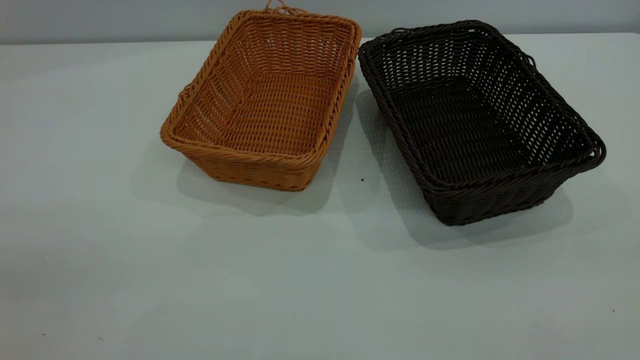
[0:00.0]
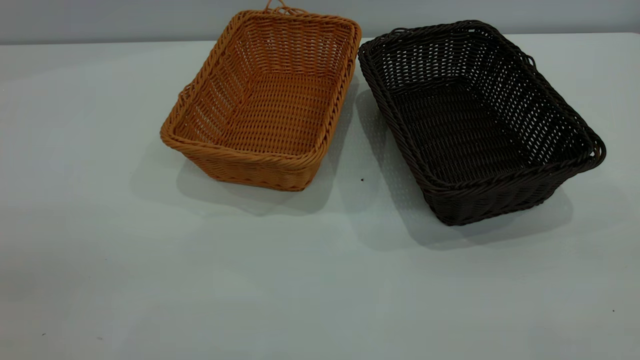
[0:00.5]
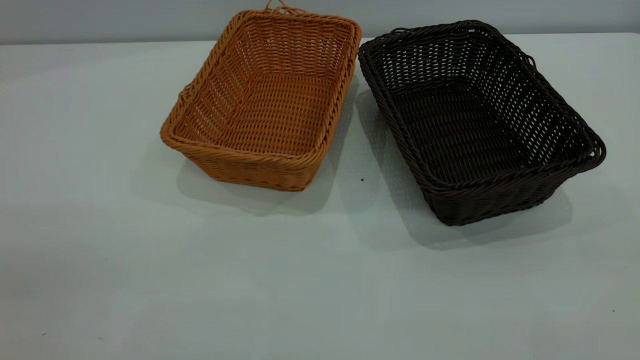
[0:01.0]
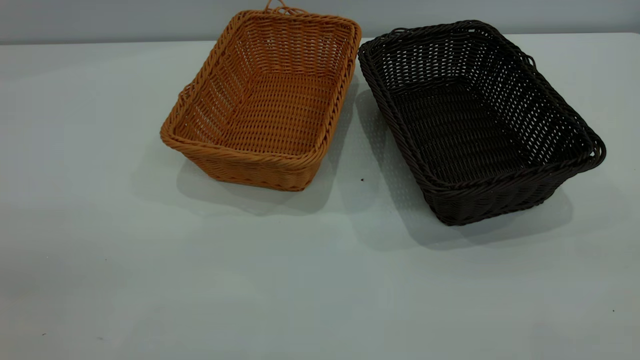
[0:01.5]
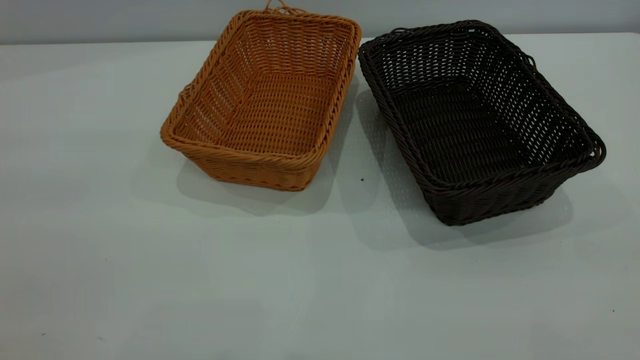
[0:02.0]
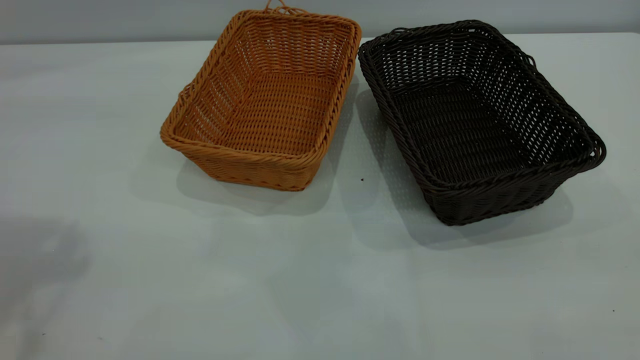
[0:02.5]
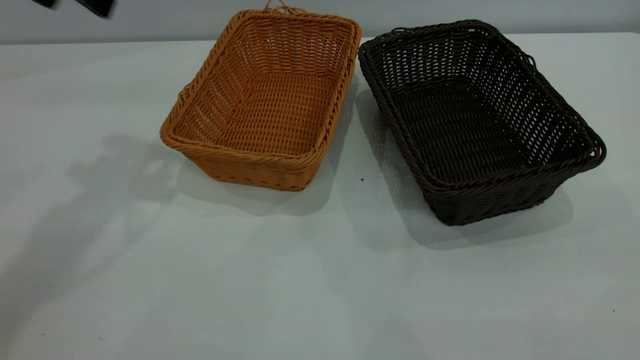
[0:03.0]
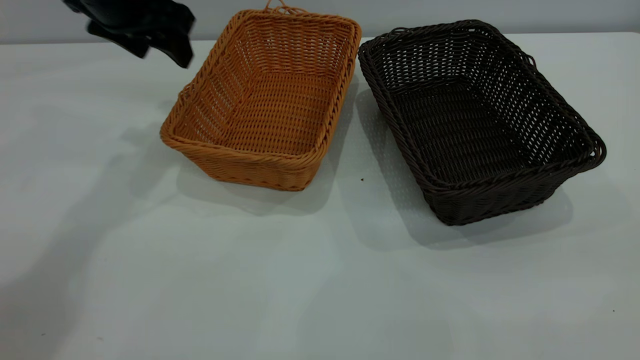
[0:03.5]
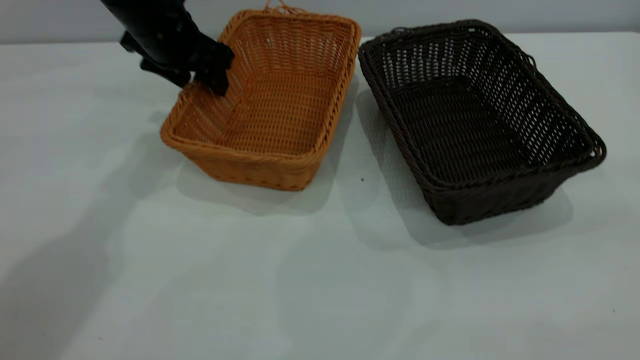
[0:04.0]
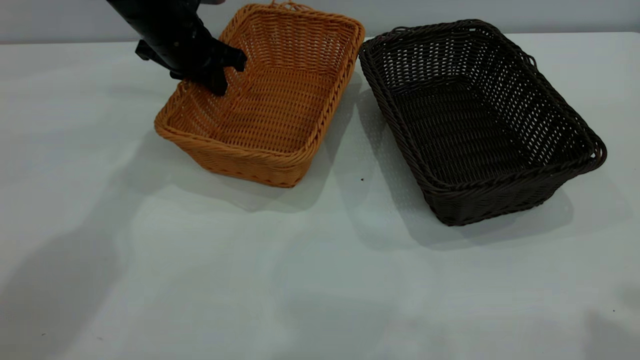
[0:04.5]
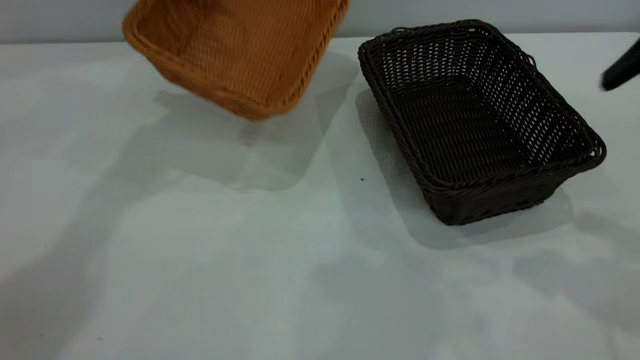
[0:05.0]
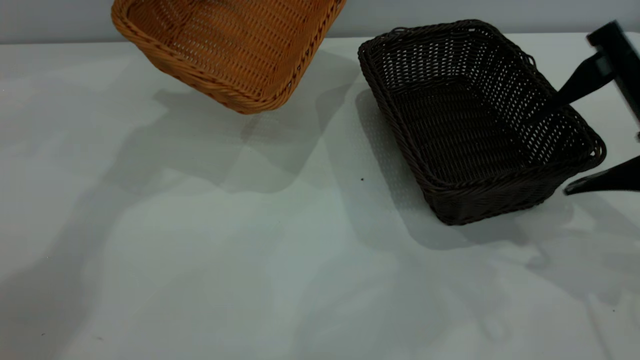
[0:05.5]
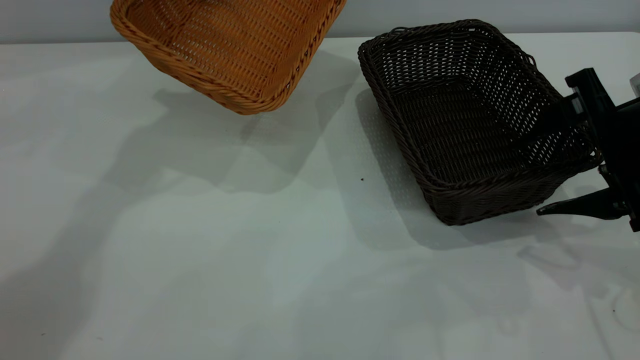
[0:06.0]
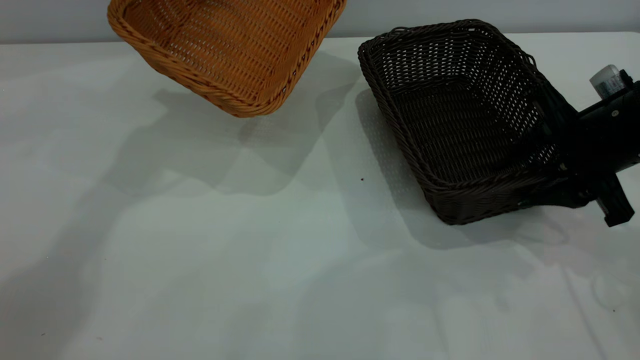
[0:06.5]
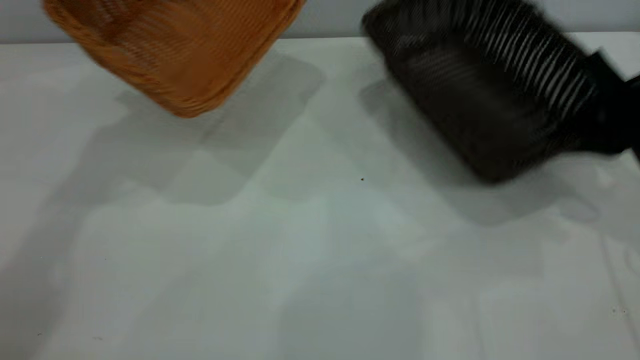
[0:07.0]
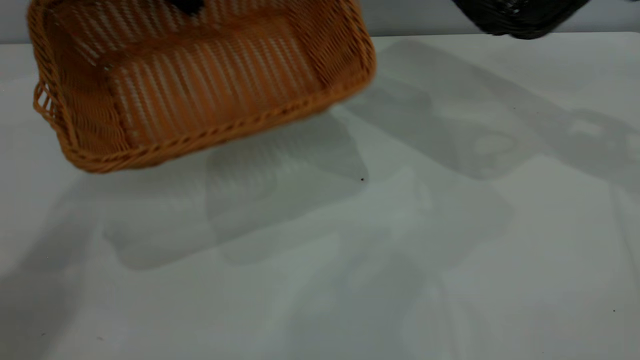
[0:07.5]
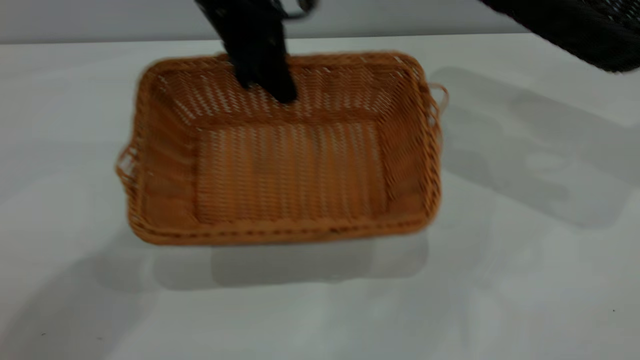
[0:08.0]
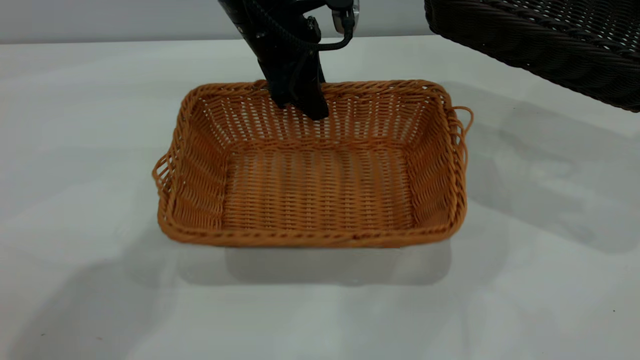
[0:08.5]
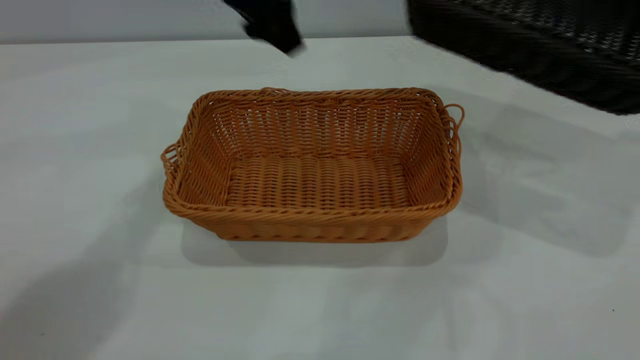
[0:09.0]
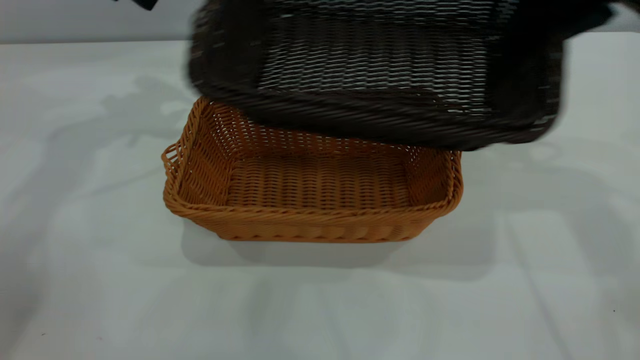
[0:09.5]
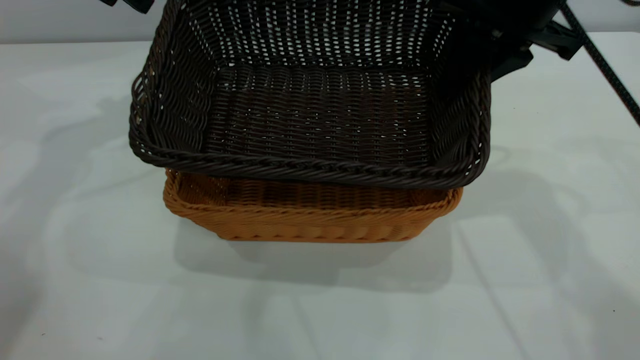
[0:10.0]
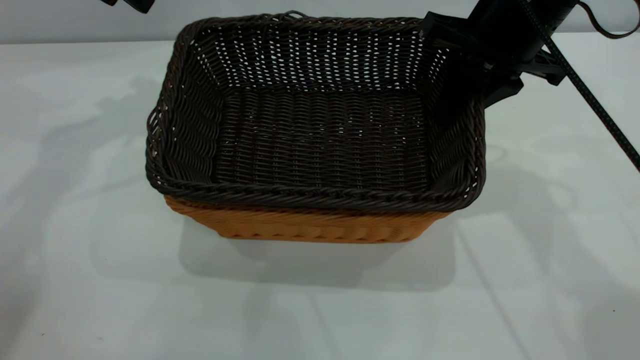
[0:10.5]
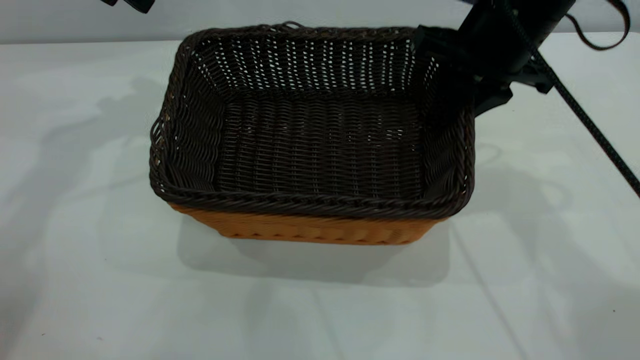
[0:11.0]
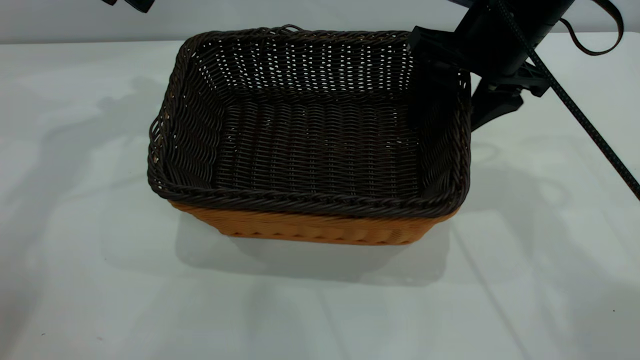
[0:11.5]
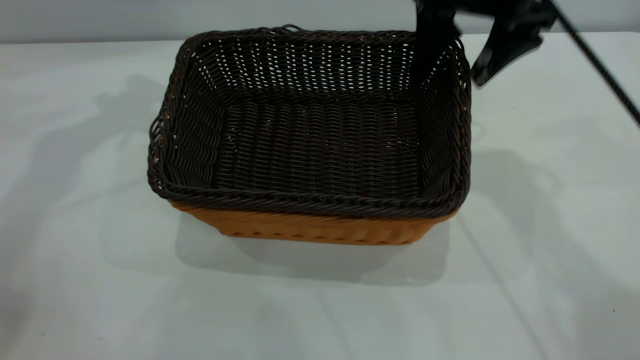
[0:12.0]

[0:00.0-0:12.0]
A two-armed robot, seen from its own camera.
Task of the whole recording: the left gripper grasp the brown basket and place it in the center of the table, the right gripper grasp the black basket and place it inside the brown one.
Step, 0:00.0 to 0:04.5: Pick up the light basket with the right gripper.
Step, 0:05.5 to 0:08.5: Place the light-colored basket in the center.
0:02.0 to 0:04.0: The left gripper travels forward and downward by roughly 50 cm.
0:04.0 to 0:06.0: The right gripper shifts roughly 35 cm forward and downward; the left gripper is displaced upward by about 15 cm, and closes.
0:06.0 to 0:08.0: The left gripper shifts roughly 15 cm to the right, downward and backward; the right gripper moves upward, to the right and forward, some 20 cm, and closes.
0:08.0 to 0:10.0: The two grippers go roughly 20 cm to the left. The left gripper opens its fingers.
0:10.0 to 0:12.0: The left gripper travels upward by some 5 cm; the right gripper opens up.
